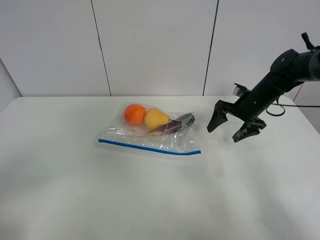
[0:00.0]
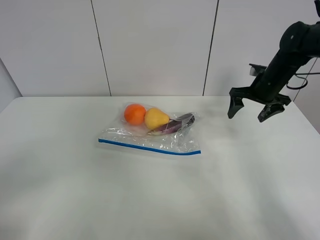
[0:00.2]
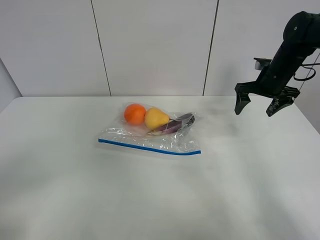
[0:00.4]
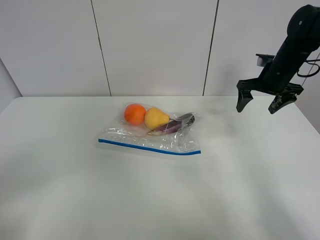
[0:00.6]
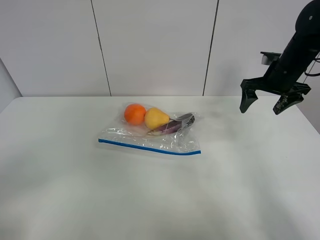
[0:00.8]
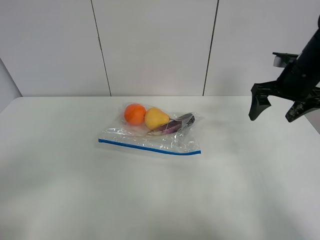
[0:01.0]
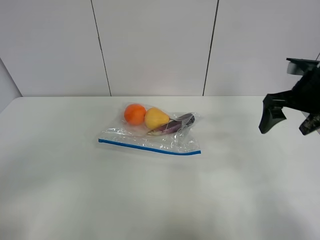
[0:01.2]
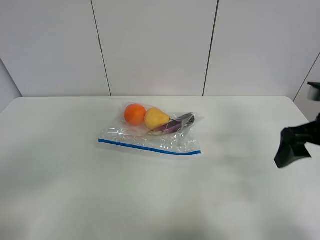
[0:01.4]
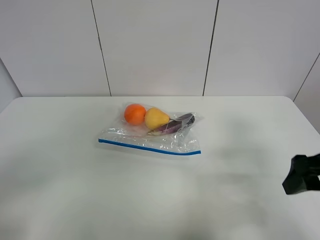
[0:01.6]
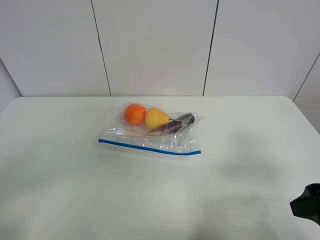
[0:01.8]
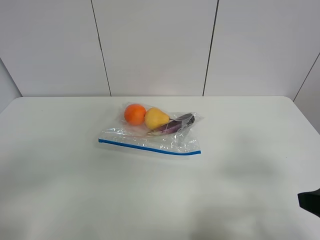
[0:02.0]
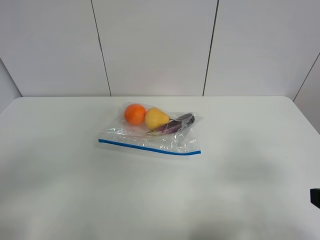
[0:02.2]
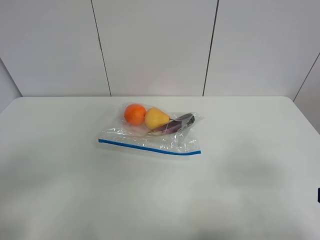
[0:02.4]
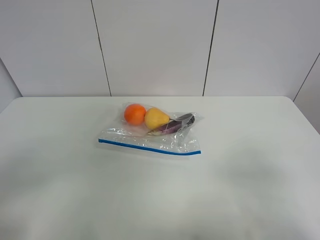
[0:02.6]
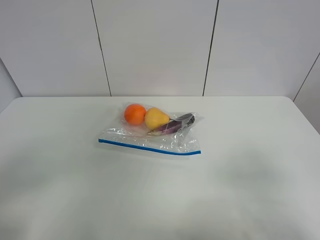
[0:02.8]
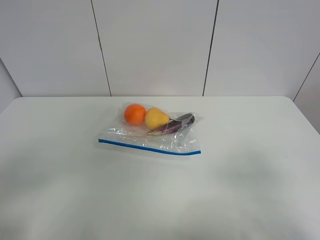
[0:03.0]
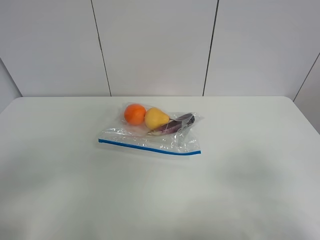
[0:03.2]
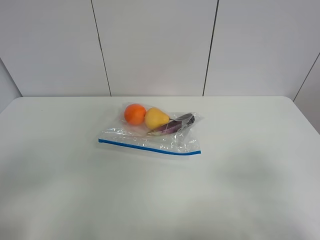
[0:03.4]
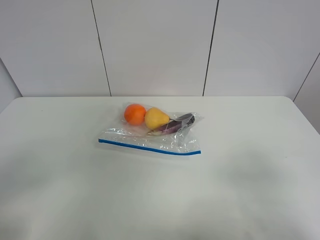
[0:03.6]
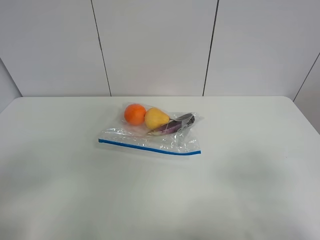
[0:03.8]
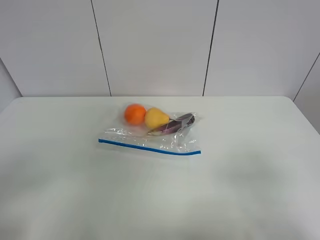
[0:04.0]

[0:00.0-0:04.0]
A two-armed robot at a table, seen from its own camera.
0:00.0 to 0:01.4: The right gripper moves backward and upward, roughly 25 cm.
0:01.4 to 0:02.6: The right gripper travels backward by approximately 20 cm.
0:02.6 to 0:04.0: The two grippers keep their place.
